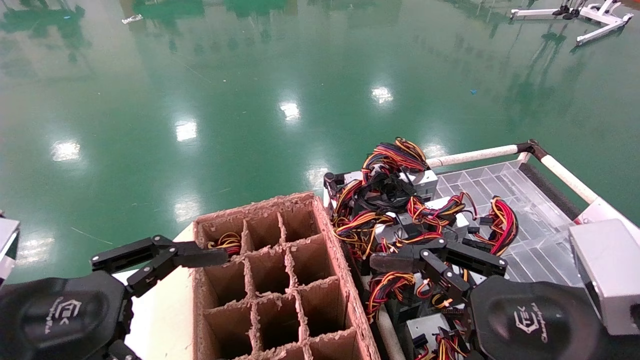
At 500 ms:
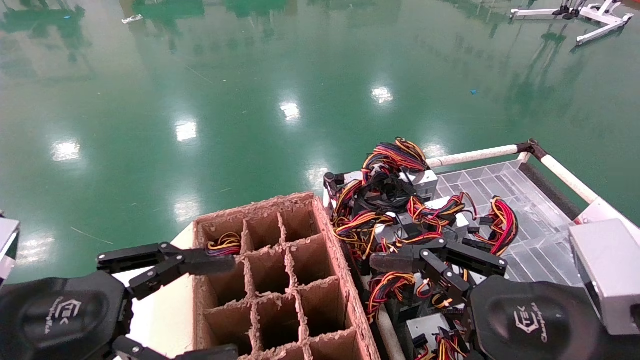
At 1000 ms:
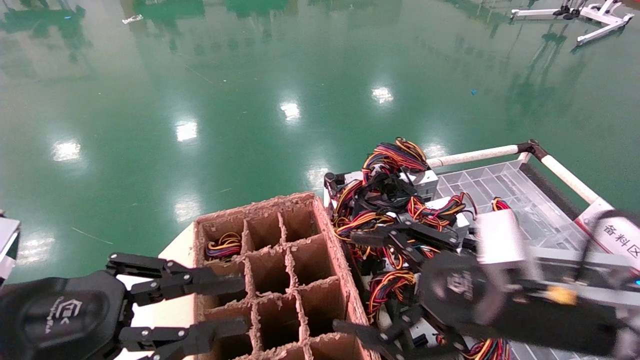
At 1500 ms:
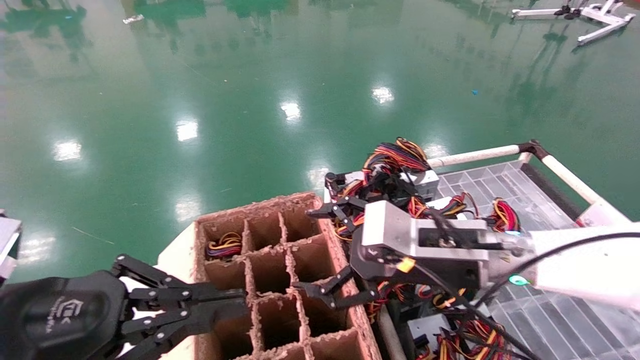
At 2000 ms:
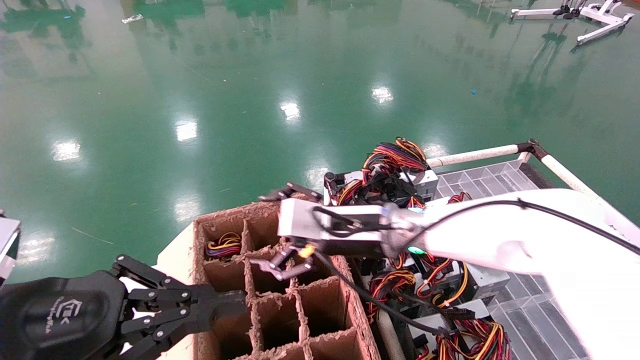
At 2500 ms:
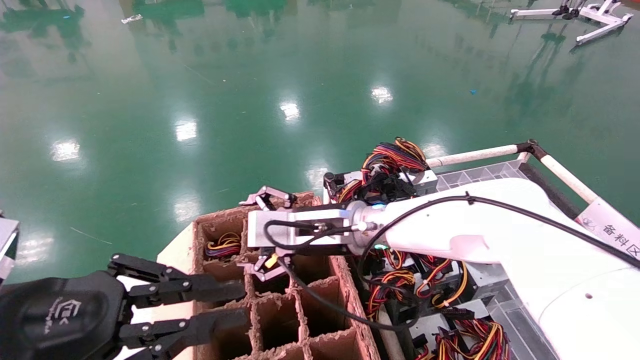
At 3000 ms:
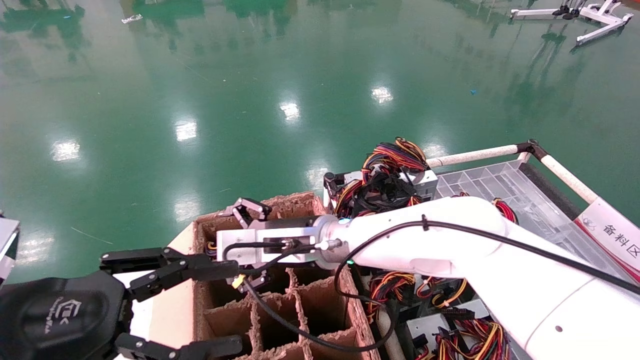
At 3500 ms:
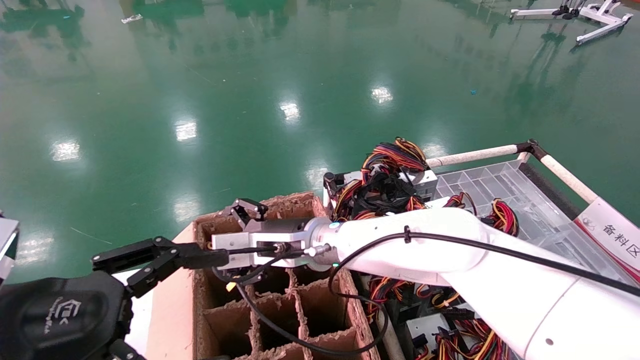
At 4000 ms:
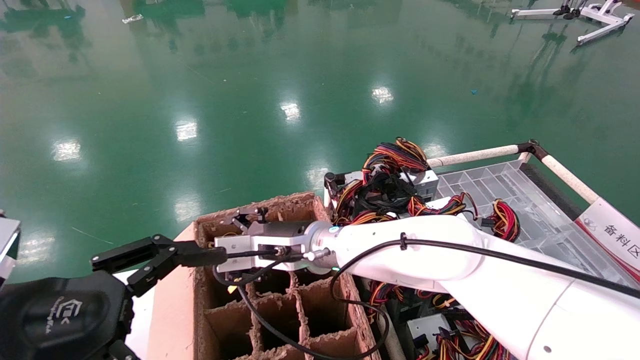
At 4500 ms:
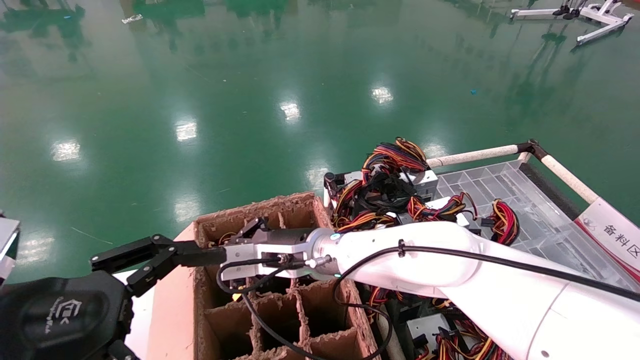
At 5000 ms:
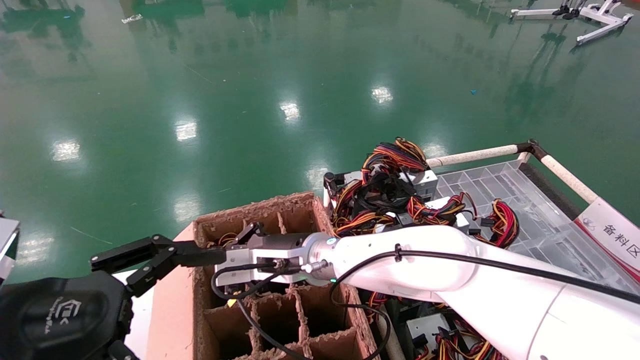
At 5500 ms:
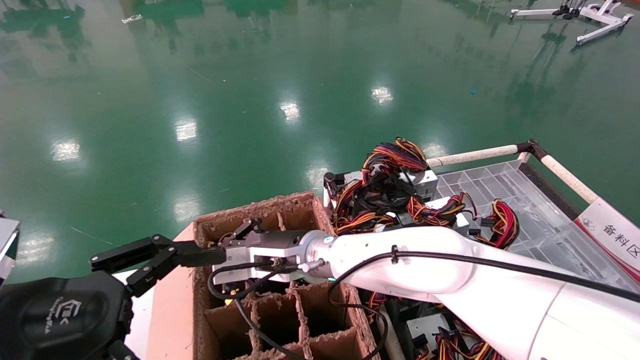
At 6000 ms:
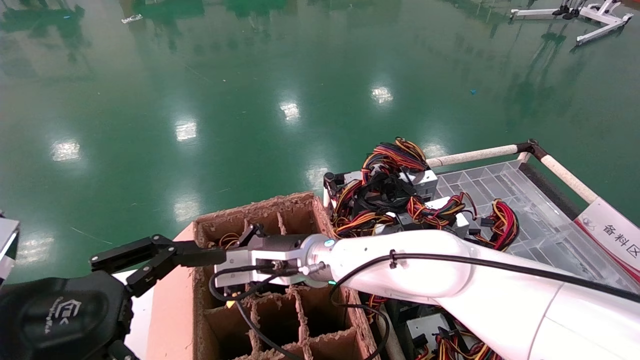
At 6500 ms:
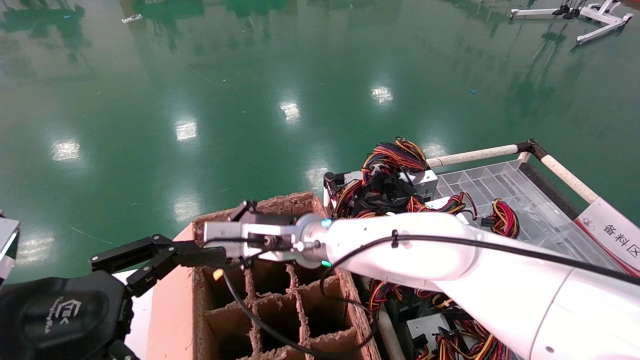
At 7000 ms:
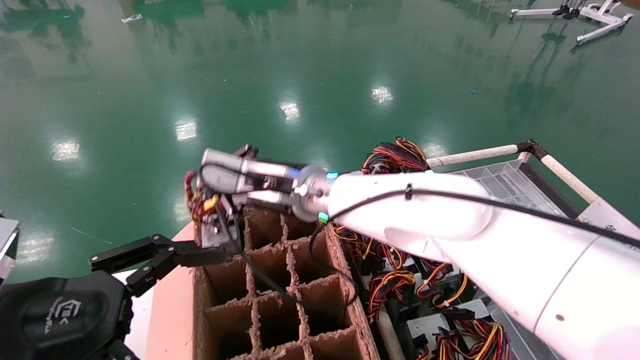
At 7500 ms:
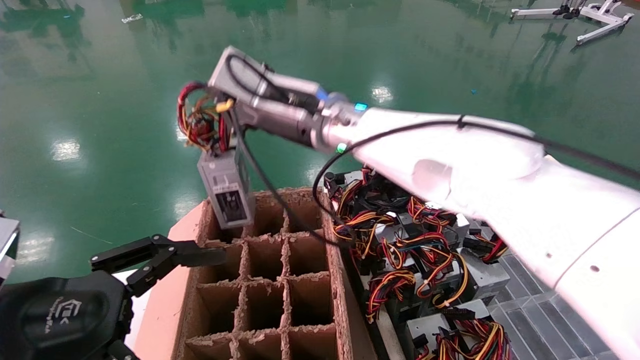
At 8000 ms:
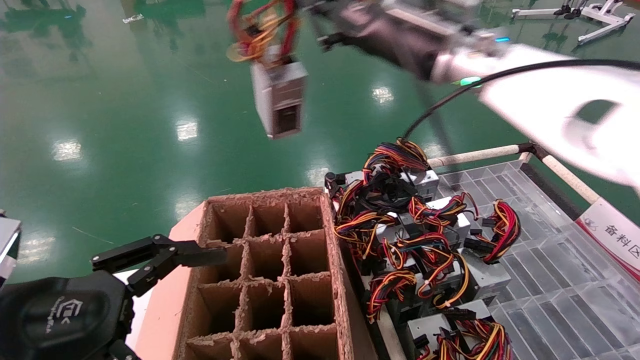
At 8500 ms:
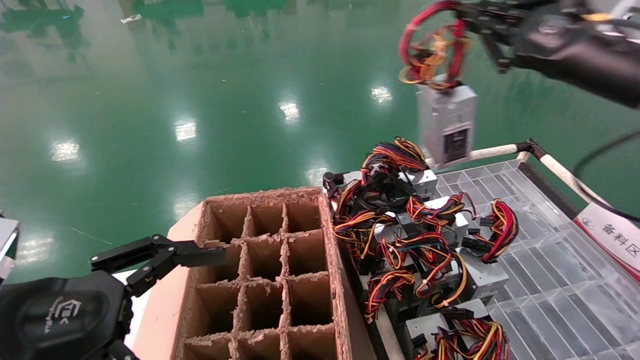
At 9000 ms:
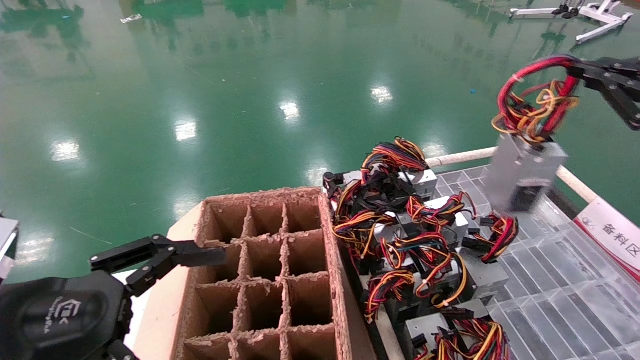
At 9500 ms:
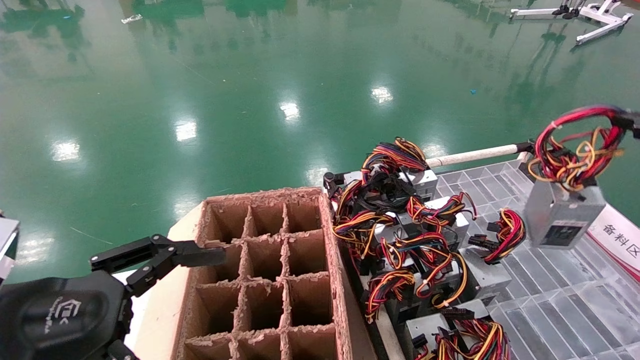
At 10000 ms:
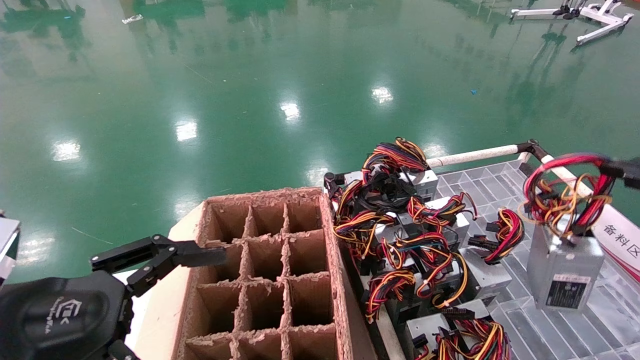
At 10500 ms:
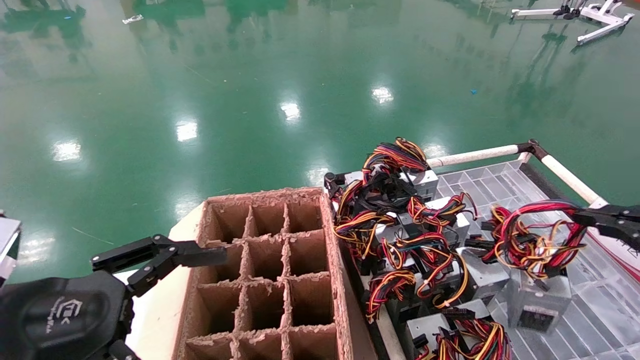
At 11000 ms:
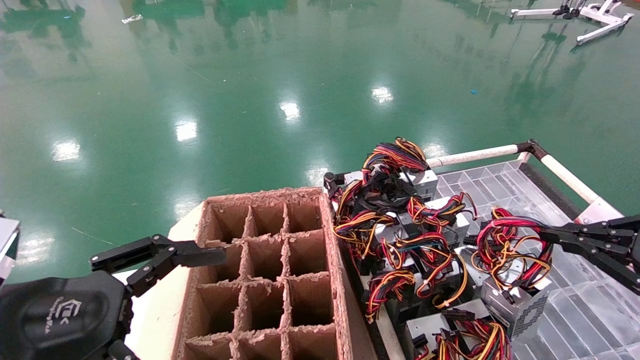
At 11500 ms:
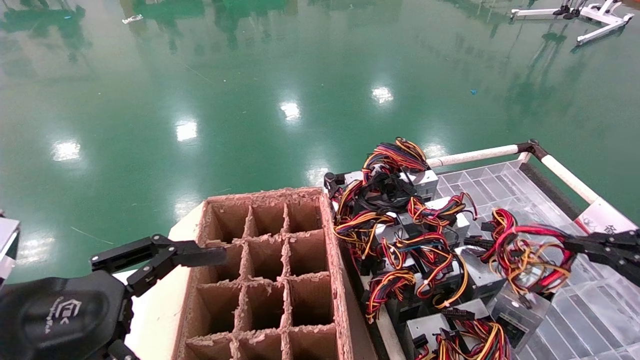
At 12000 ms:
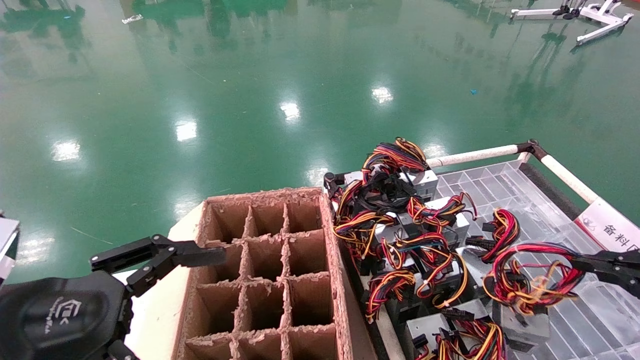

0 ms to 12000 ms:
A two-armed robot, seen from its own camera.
Step, 2000 ms to 6000 ms: Grab and lift the power supply from the large box.
0 ms to 2000 ms: The right gripper shifts roughly 25 cm forward and to the left, while the left gripper closes up.
2000 ms to 4000 ms: The right gripper shifts approximately 10 cm to the left. Meanwhile the left gripper opens.
4000 ms to 6000 ms: The right gripper closes up.
6000 ms to 8000 ms: The right gripper moves upward and to the right, about 30 cm.
8000 ms to 10000 ms: The right gripper shifts roughly 40 cm to the right, backward and downward.
10000 ms to 12000 ms: The right gripper is displaced downward by some 5 cm.

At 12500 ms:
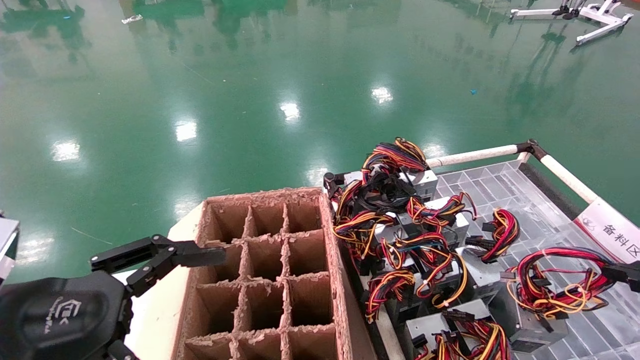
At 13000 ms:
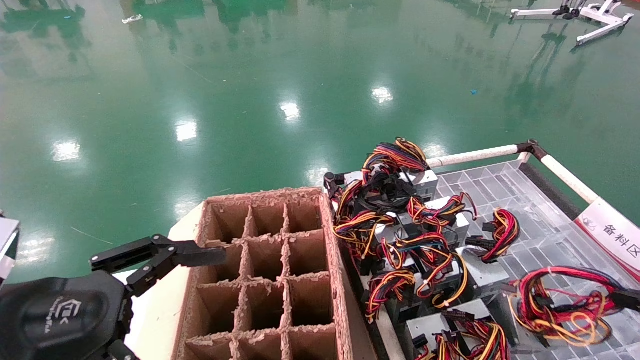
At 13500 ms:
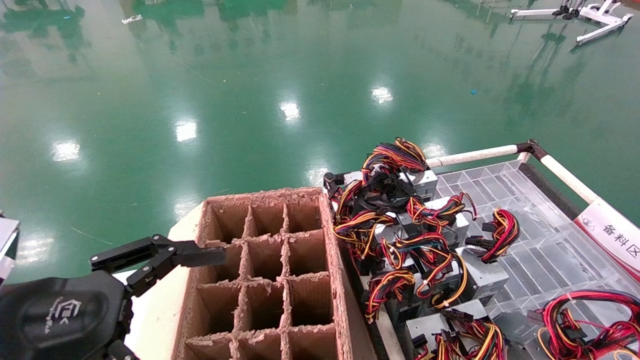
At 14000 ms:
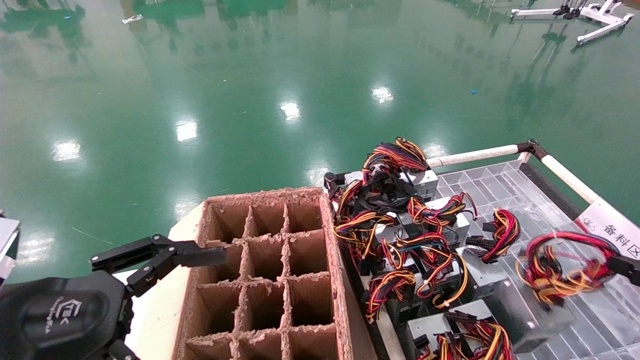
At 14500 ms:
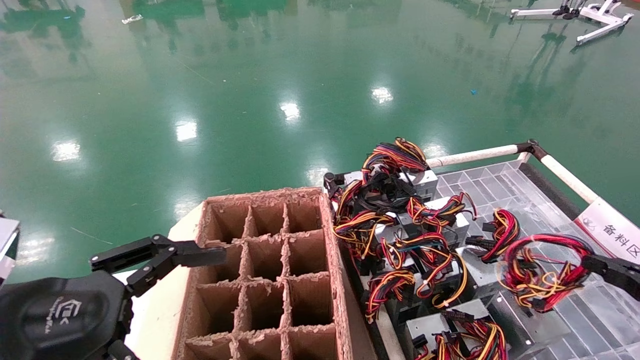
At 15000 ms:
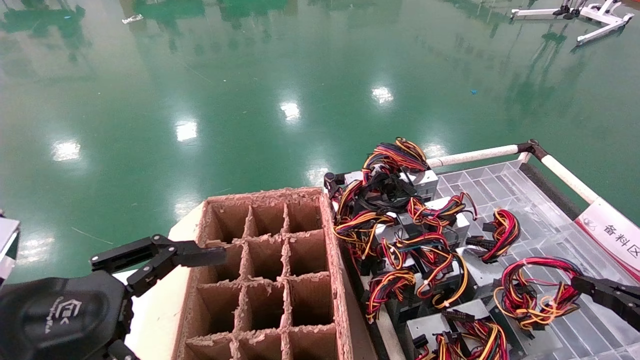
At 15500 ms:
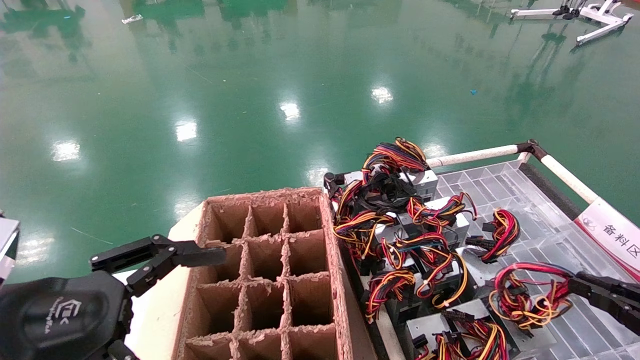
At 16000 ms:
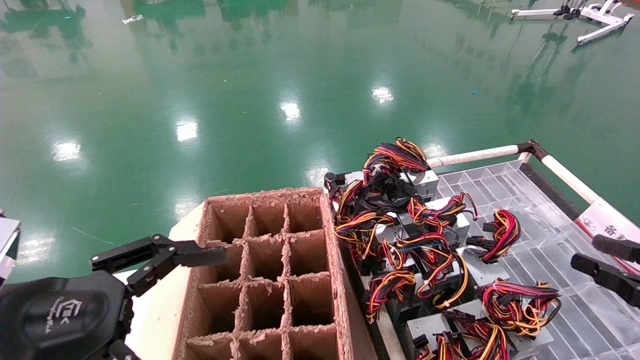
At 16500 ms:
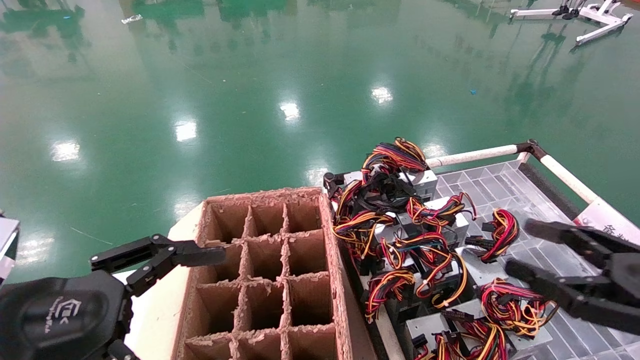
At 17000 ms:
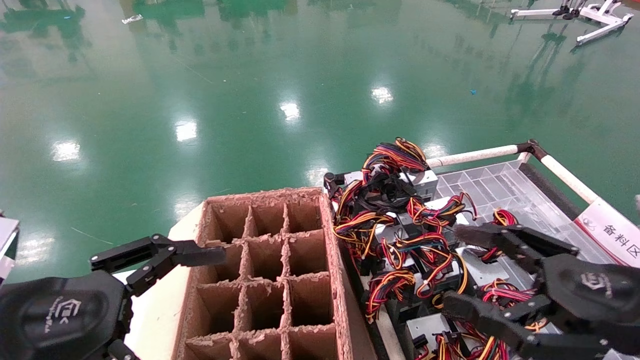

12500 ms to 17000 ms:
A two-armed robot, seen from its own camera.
Step, 12500 ms to 15500 ms: Place the power supply on the operating table.
12500 ms to 14500 ms: The right gripper goes some 5 cm downward.
14500 ms to 17000 ms: The right gripper heads to the left, covering about 15 cm, and opens its fingers.
